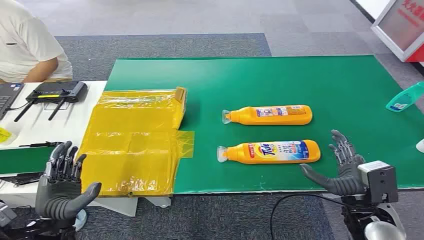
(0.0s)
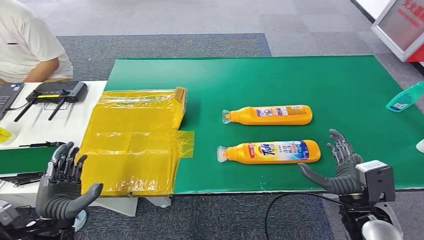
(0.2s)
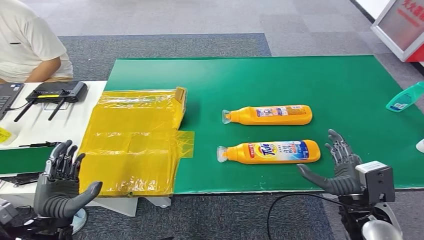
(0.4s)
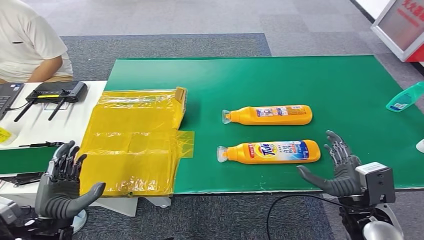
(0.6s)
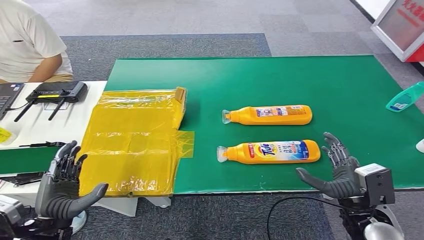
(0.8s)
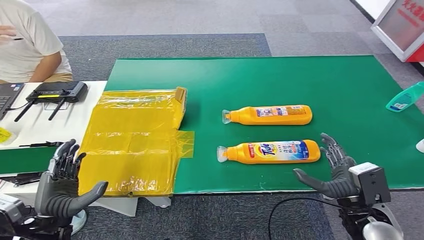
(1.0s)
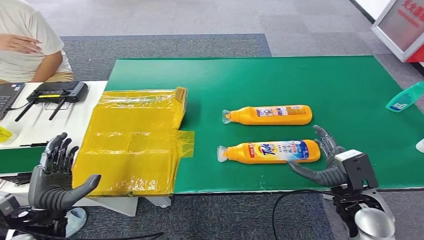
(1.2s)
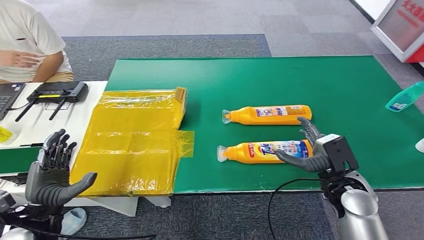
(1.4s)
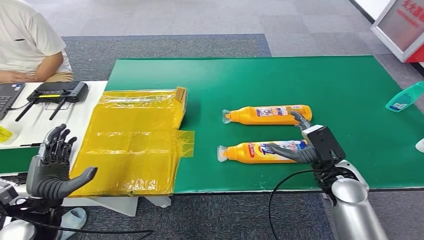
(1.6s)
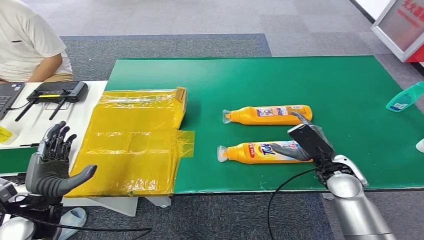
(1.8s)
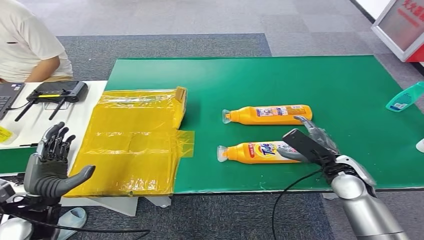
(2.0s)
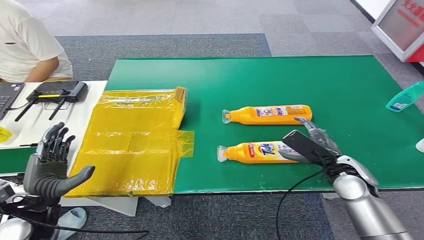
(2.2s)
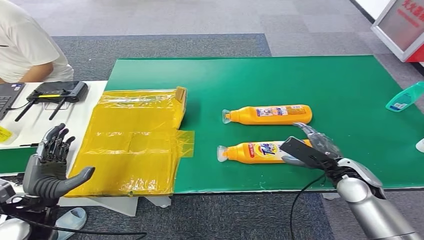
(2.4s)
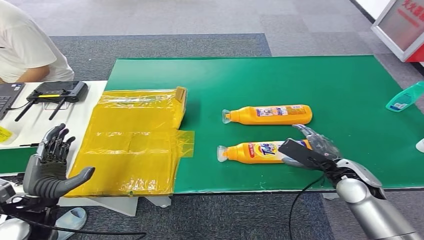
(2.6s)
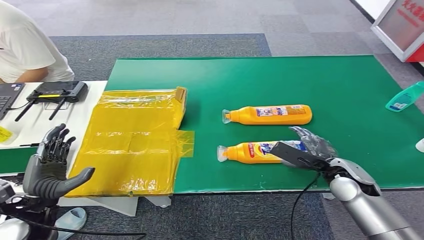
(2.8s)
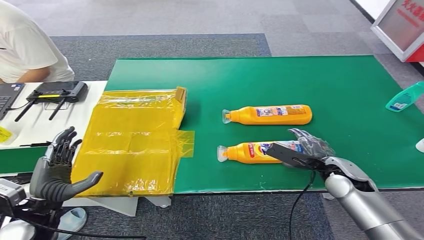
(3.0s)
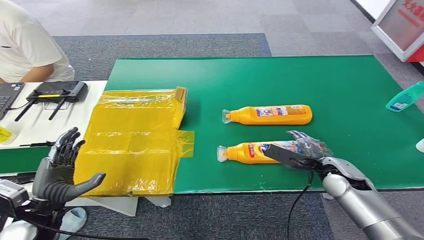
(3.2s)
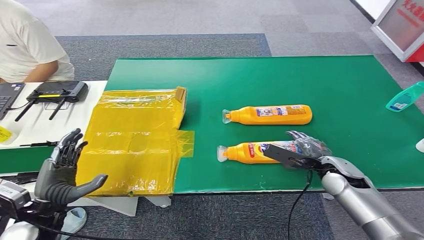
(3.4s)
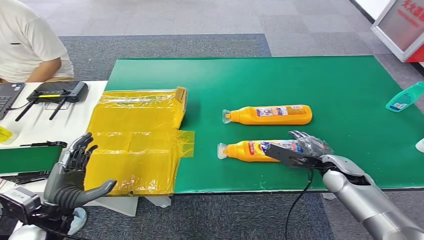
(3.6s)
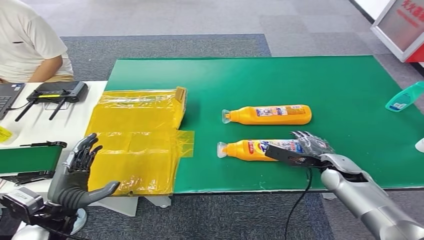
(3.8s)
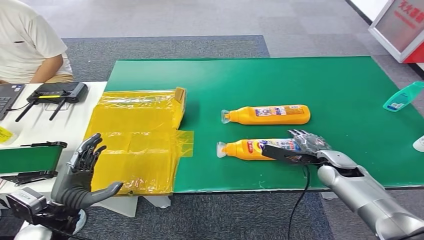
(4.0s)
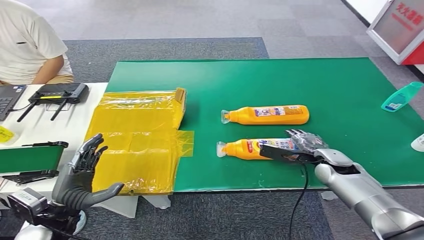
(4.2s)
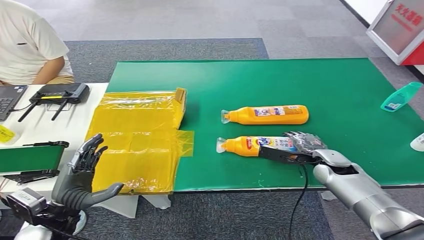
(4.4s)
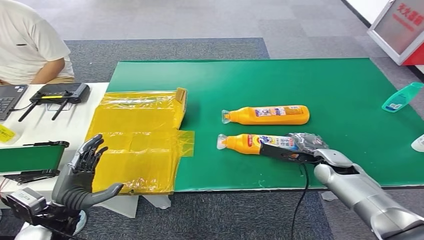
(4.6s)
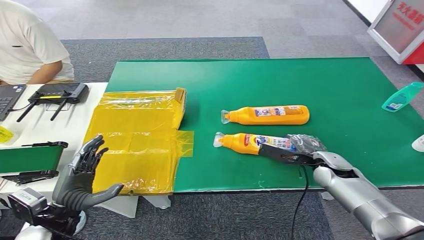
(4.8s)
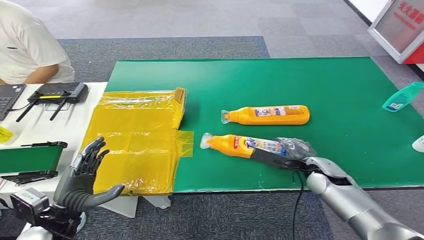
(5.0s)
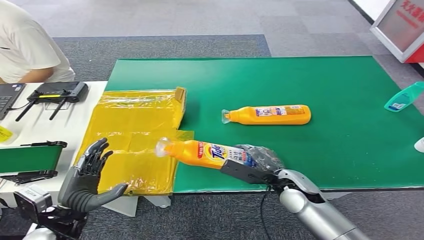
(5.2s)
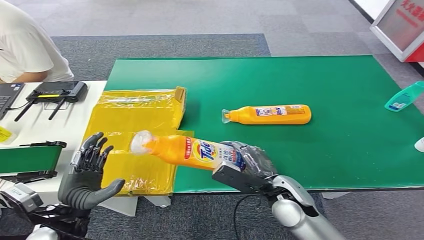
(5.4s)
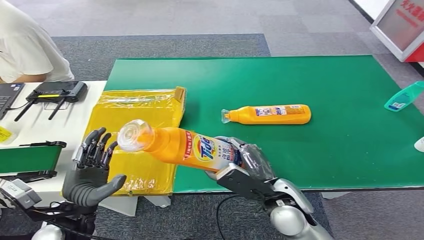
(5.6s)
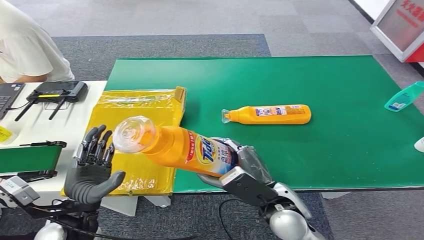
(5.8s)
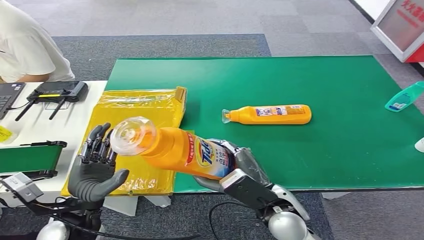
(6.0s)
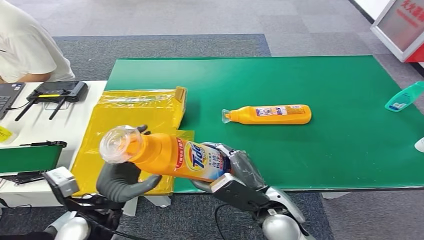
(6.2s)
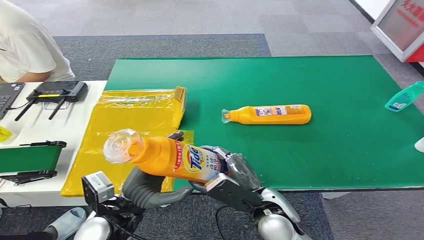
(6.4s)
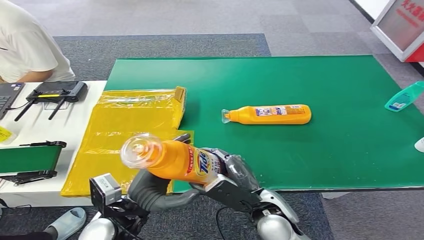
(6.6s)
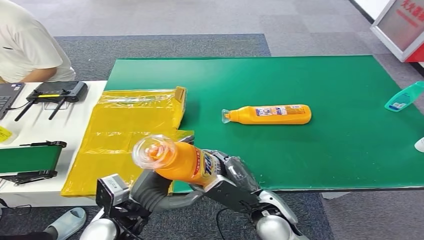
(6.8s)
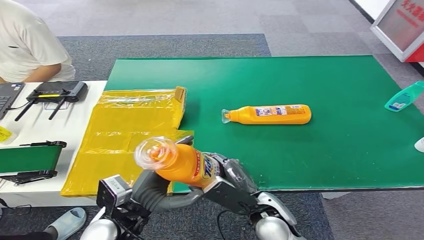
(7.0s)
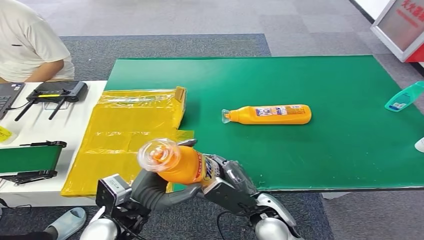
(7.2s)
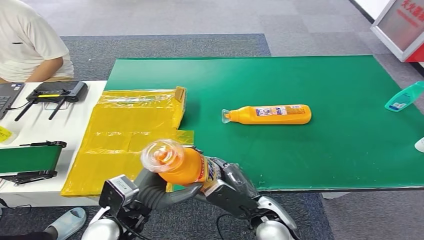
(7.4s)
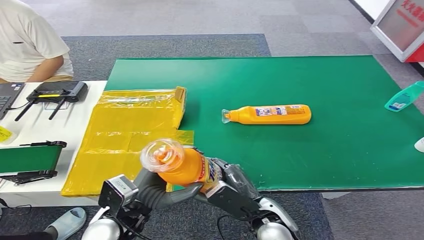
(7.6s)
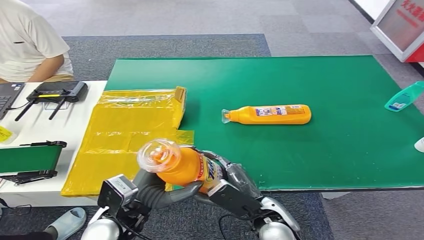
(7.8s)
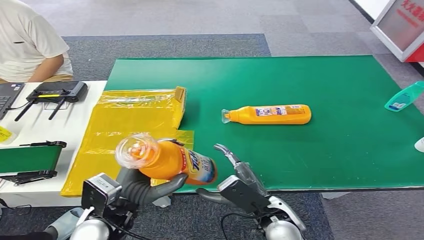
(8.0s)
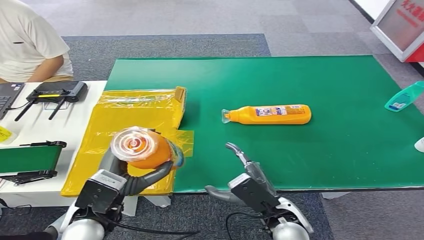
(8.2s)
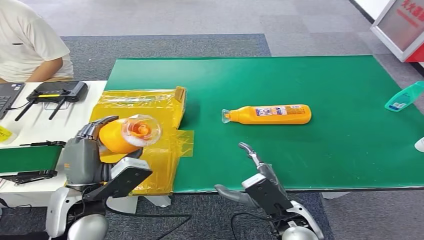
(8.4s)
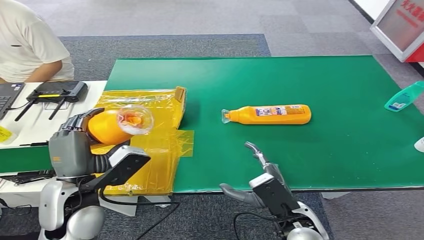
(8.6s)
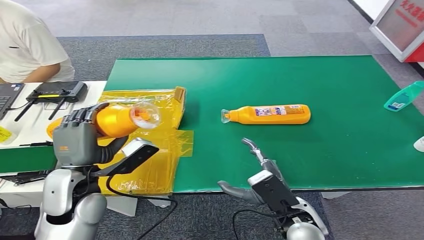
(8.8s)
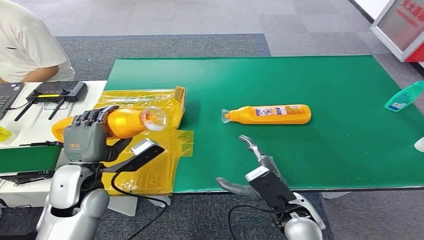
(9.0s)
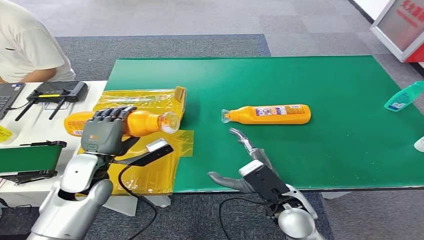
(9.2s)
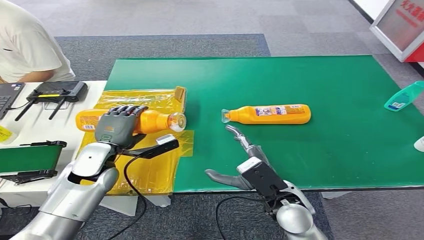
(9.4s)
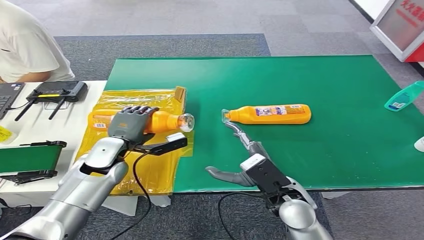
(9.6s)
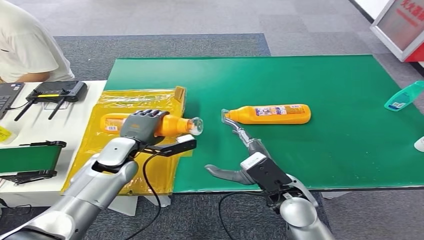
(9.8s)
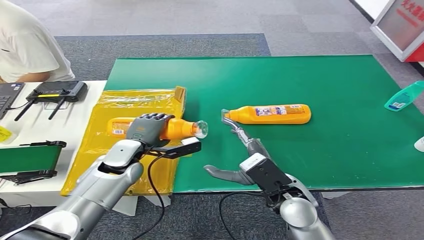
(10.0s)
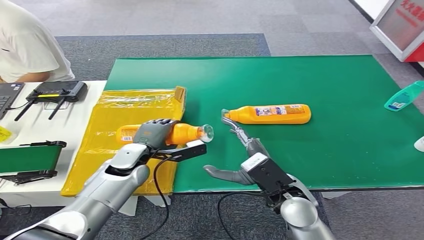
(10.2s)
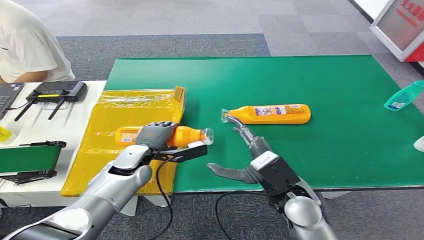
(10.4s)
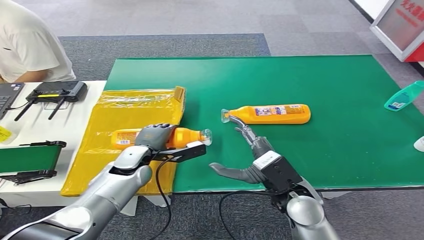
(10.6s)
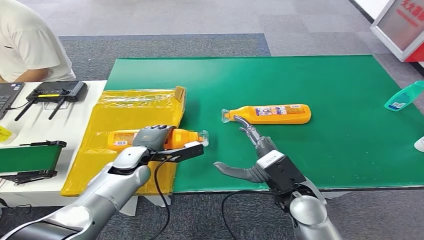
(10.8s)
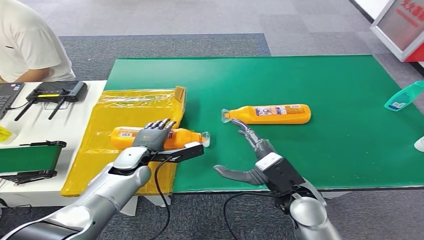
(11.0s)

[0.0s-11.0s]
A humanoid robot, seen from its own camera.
Step, 0.0s to 6.4s: Pick up the bottle from the table.
1.6s to 3.2s: The right hand ends up about 5 cm from where it was.
6.2s to 7.8s: The hands move only a little.
7.8s to 9.4s: The right hand changes place by about 5 cm; the left hand travels forward and to the left by some 15 cm.
9.4s to 11.0s: The left hand heads downward and to the right, covering some 10 cm.

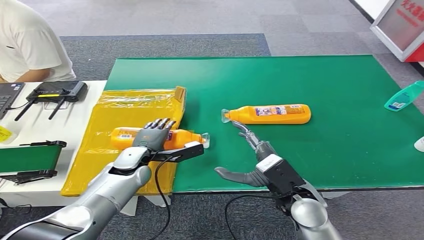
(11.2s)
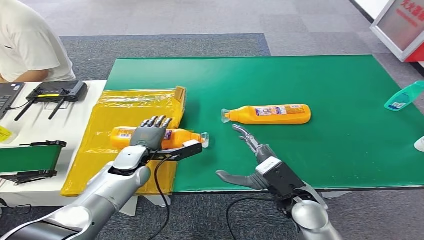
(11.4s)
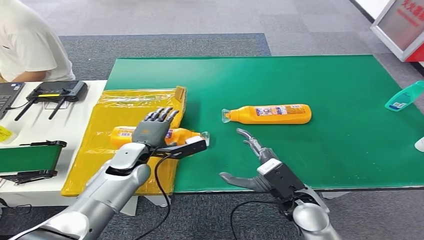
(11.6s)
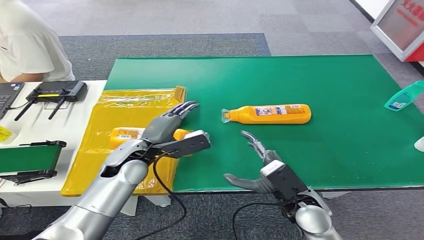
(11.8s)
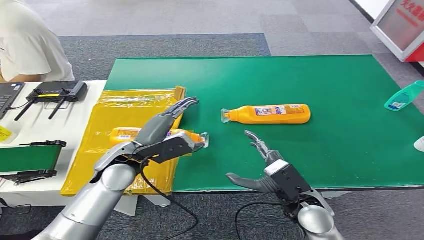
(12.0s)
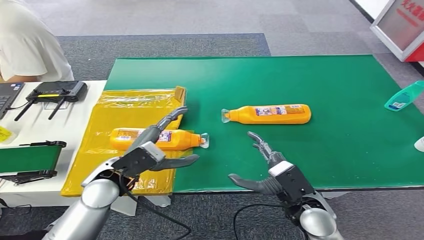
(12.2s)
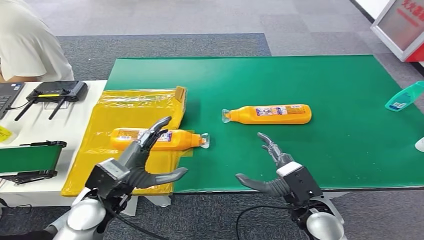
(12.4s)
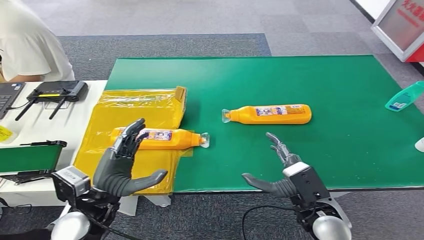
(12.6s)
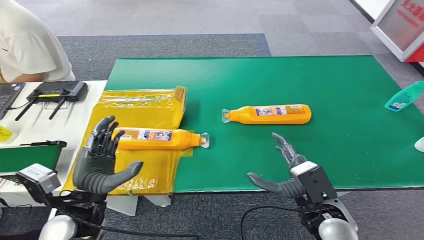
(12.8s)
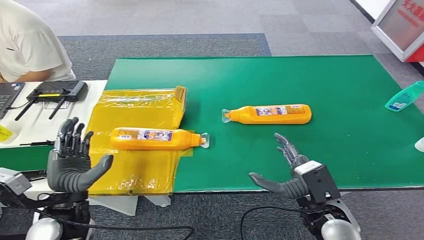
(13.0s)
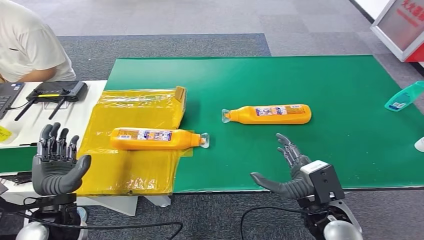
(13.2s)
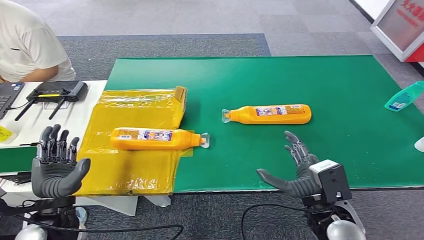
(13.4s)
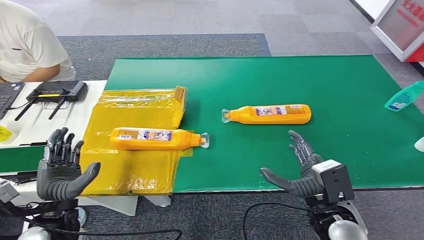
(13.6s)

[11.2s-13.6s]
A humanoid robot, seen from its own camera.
Step, 11.2s to 13.6s: Turn the bottle to the front side.
11.2s to 12.4s: The right hand shifts by some 5 cm. The left hand moves backward and upward, approximately 15 cm.
12.4s to 13.6s: The left hand goes approximately 10 cm to the left and backward.

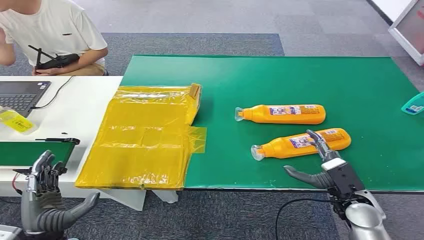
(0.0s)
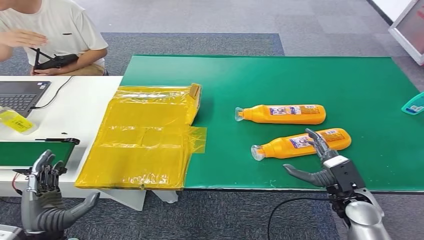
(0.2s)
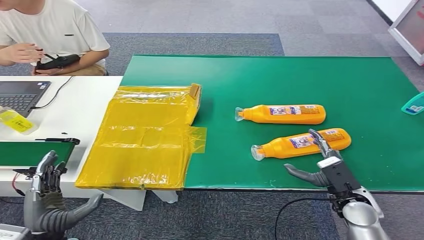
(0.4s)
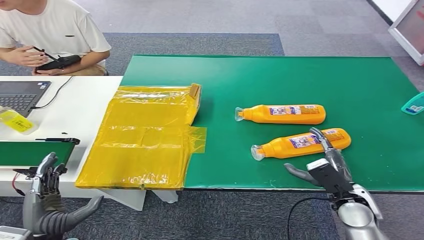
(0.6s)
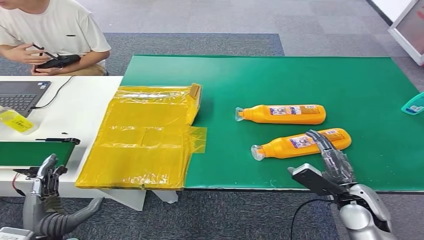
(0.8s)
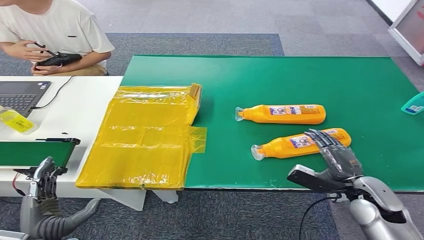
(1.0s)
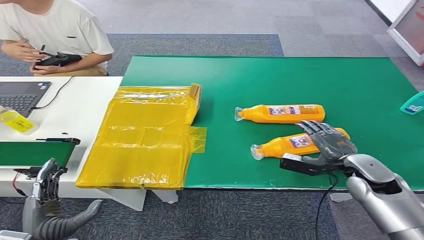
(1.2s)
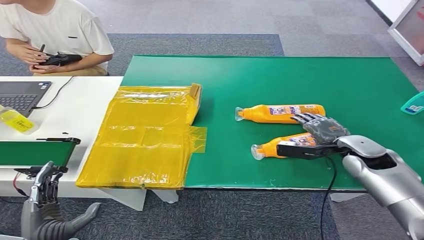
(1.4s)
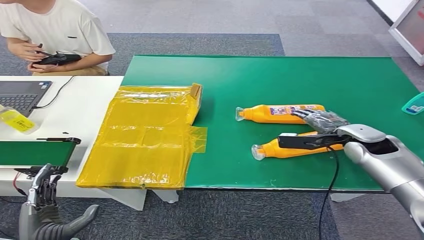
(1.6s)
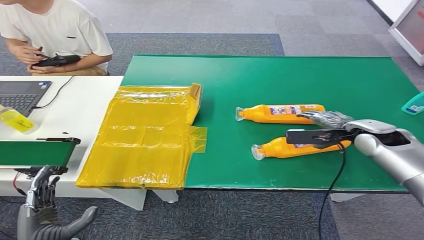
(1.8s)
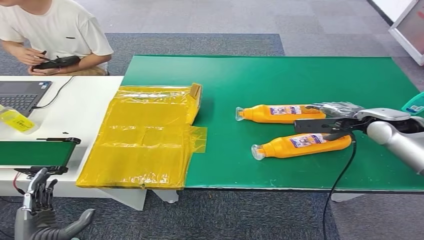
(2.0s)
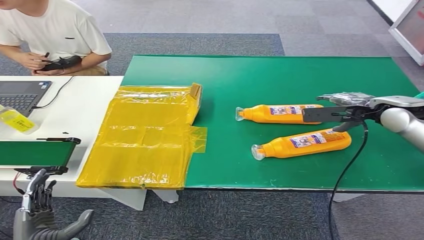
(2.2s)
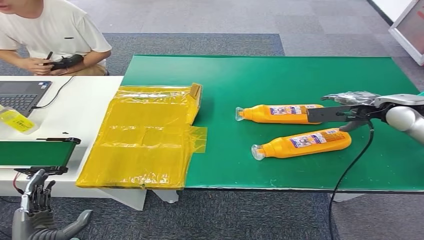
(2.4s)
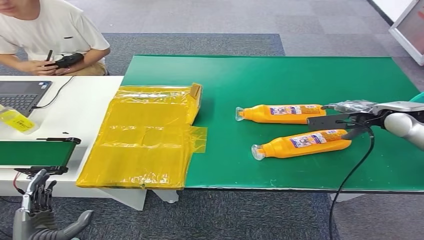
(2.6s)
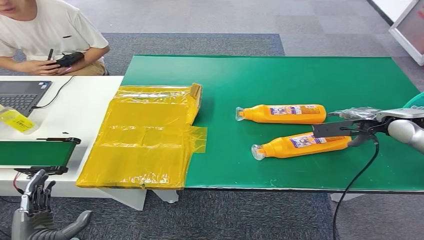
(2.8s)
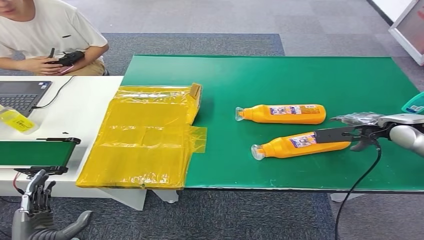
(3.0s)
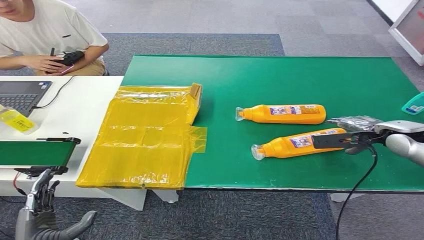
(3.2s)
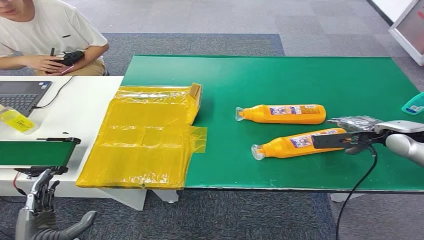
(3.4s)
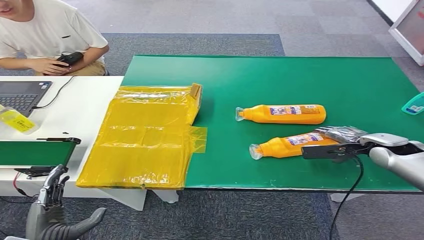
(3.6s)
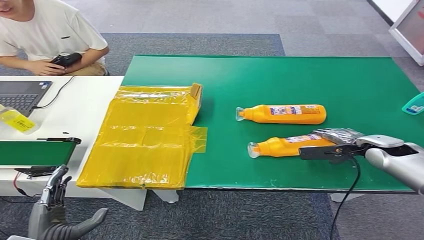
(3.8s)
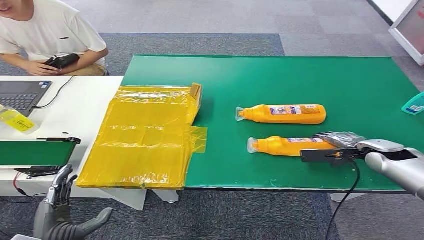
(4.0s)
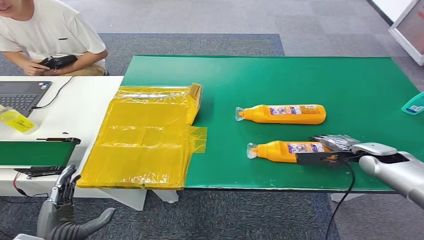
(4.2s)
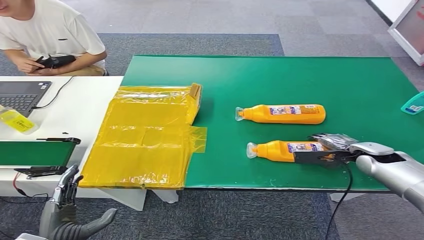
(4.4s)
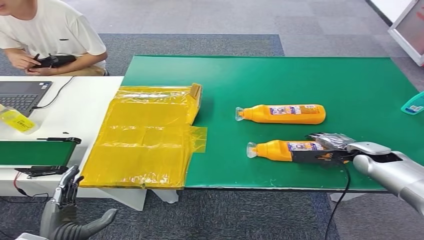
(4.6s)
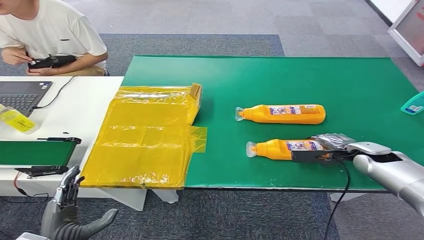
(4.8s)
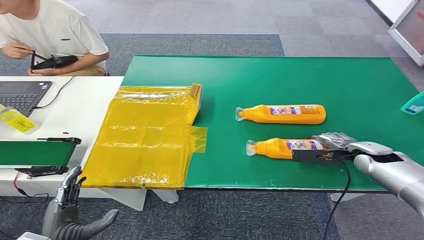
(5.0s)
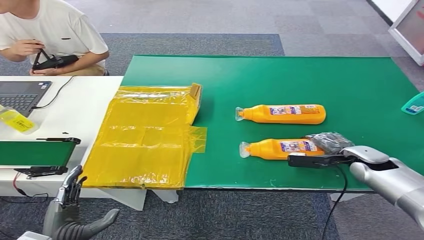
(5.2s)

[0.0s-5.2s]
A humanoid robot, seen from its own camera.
1.8s to 3.4s: The right hand goes upward and returns, about 10 cm each way.
3.4s to 5.2s: The right hand is displaced downward by about 10 cm.
